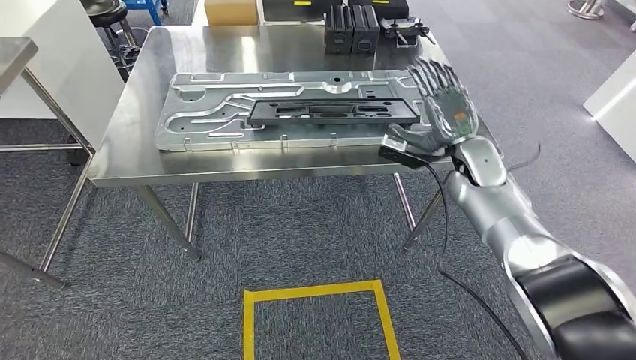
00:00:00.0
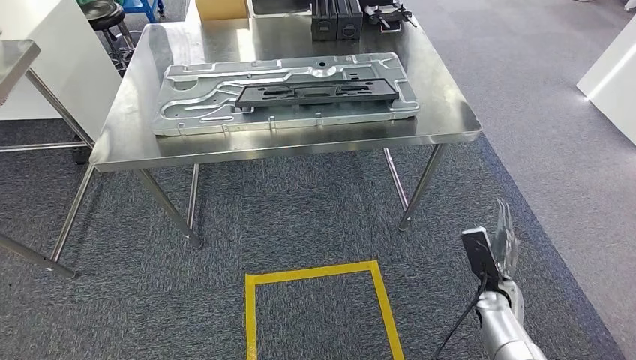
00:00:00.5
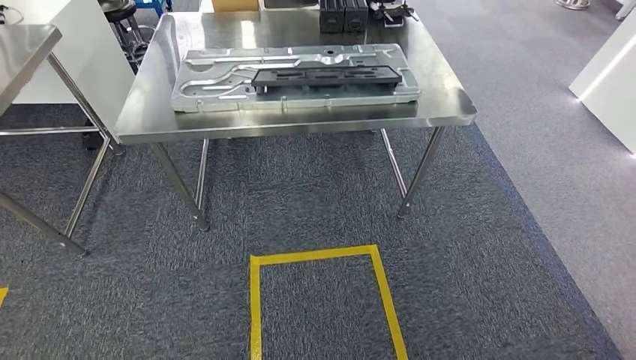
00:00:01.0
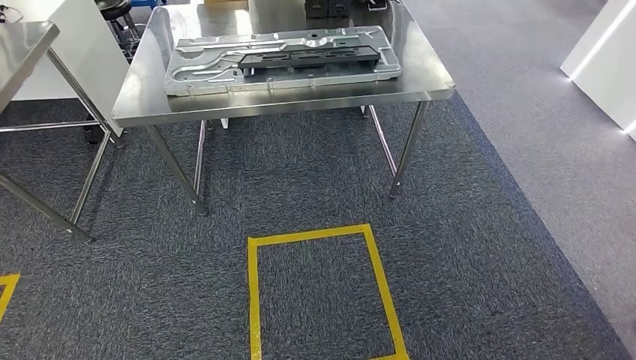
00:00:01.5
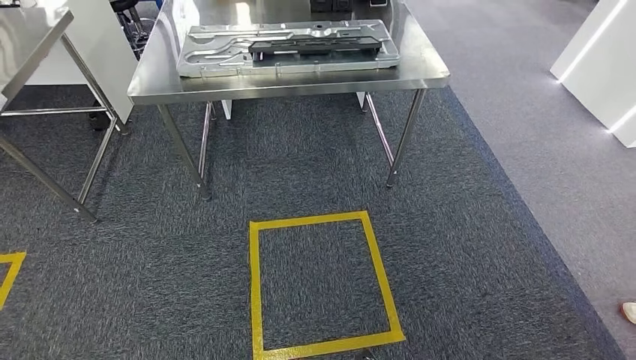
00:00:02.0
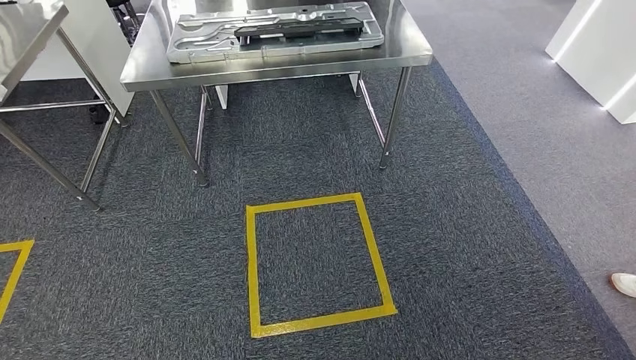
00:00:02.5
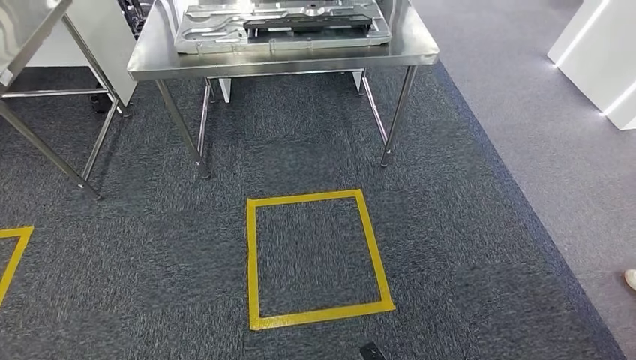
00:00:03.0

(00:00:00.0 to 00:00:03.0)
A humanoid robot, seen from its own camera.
Step, 00:00:01.0 - 00:00:03.0: Move to the initial position of the shelf.
